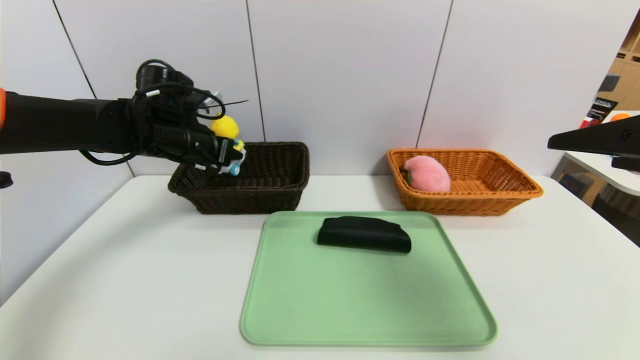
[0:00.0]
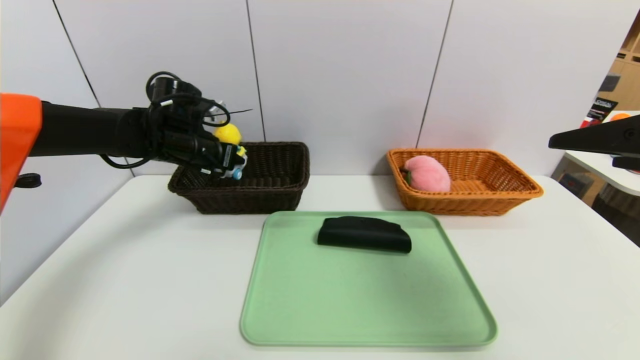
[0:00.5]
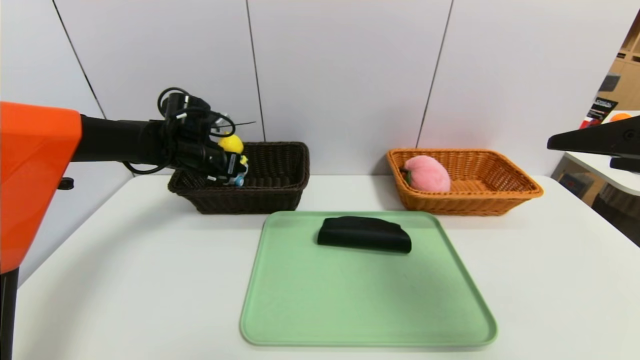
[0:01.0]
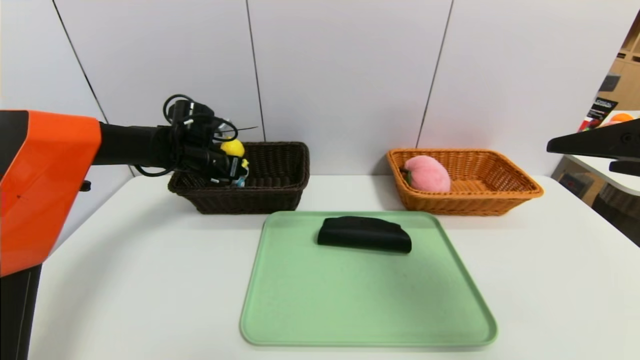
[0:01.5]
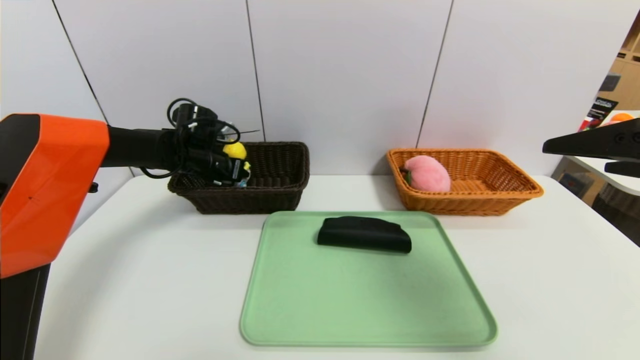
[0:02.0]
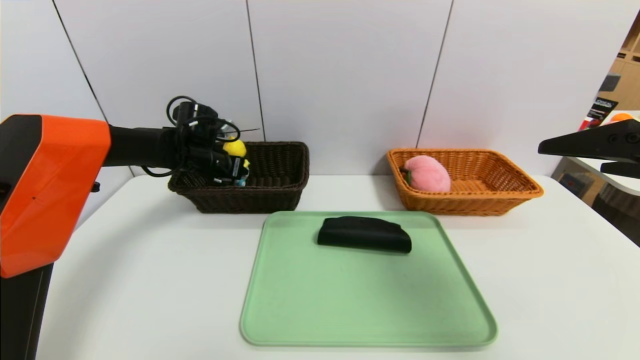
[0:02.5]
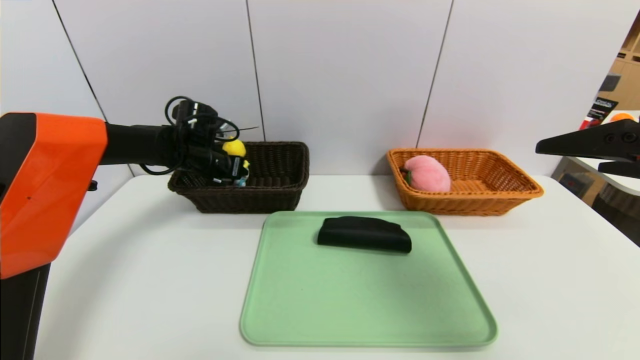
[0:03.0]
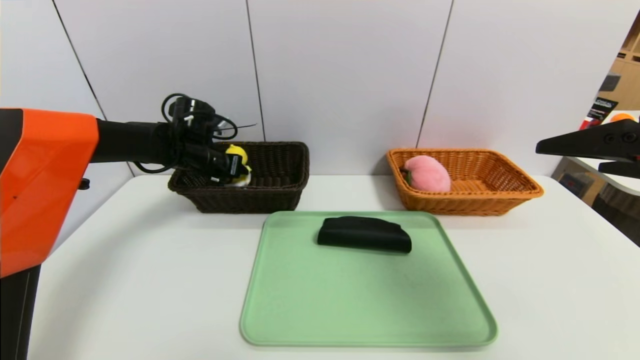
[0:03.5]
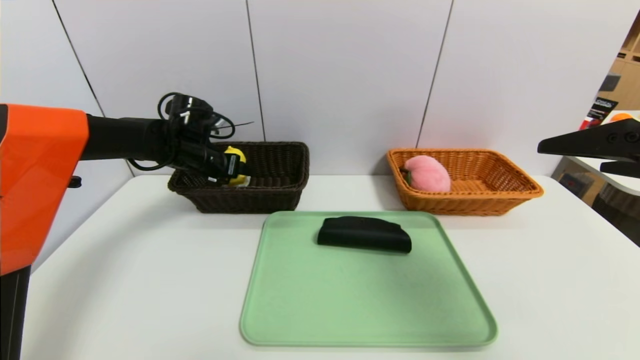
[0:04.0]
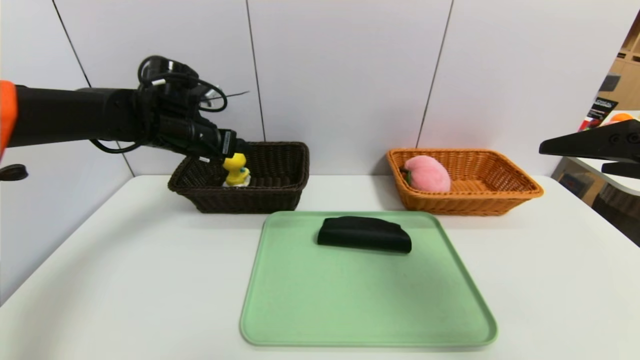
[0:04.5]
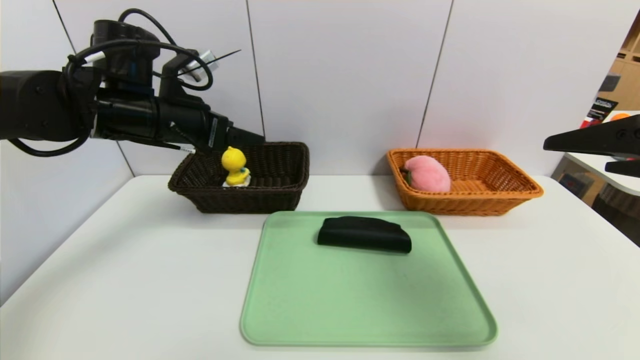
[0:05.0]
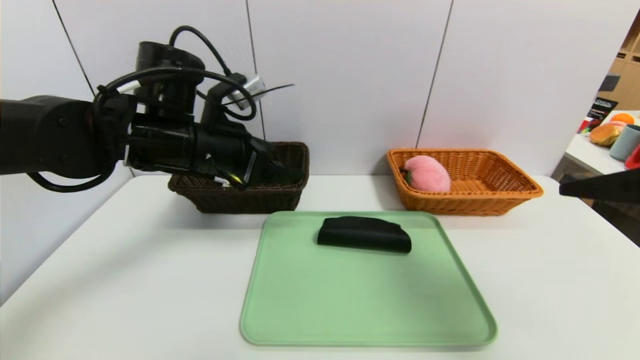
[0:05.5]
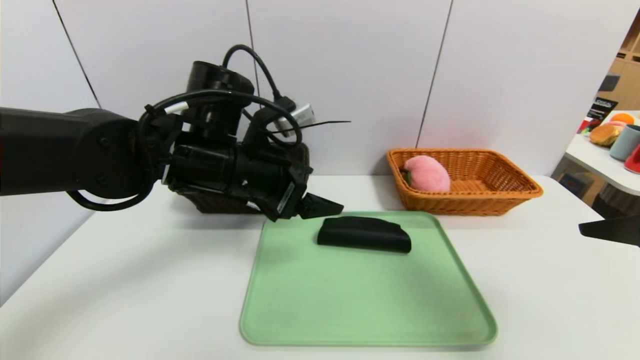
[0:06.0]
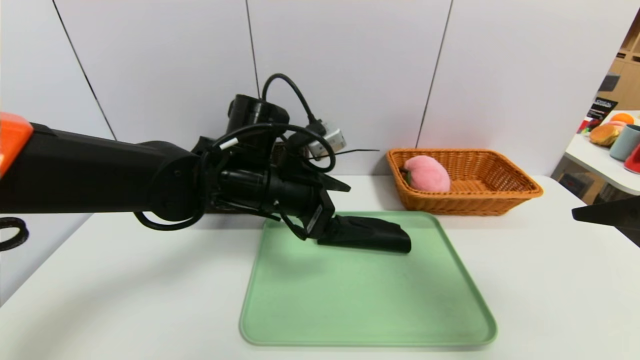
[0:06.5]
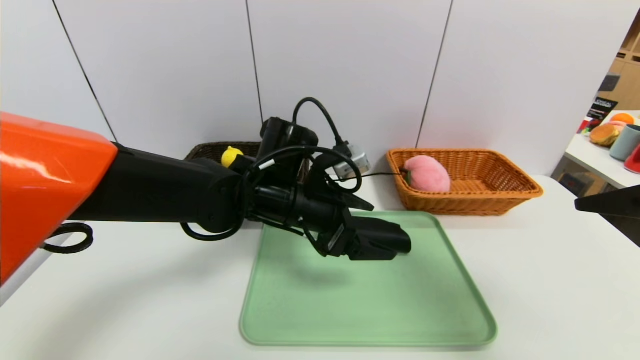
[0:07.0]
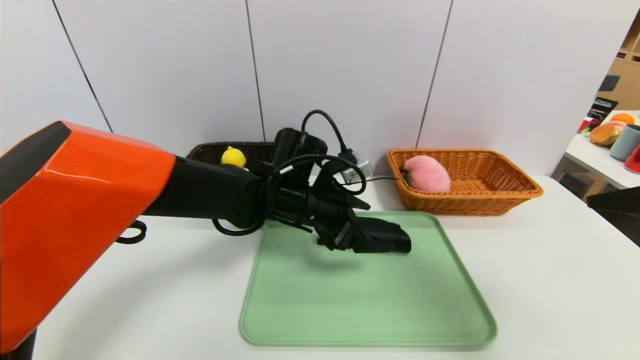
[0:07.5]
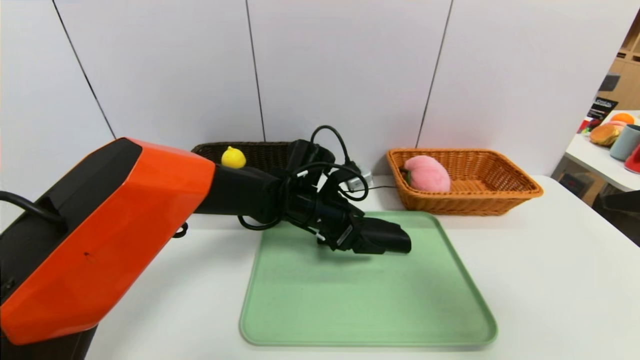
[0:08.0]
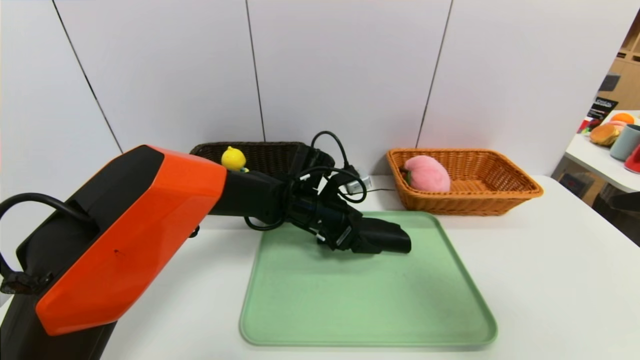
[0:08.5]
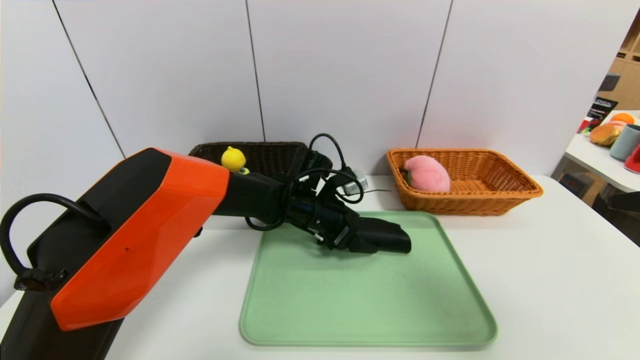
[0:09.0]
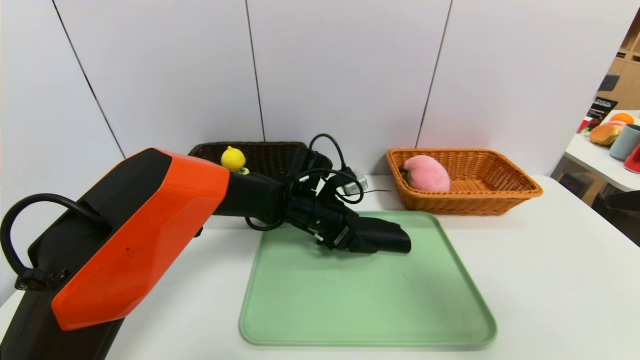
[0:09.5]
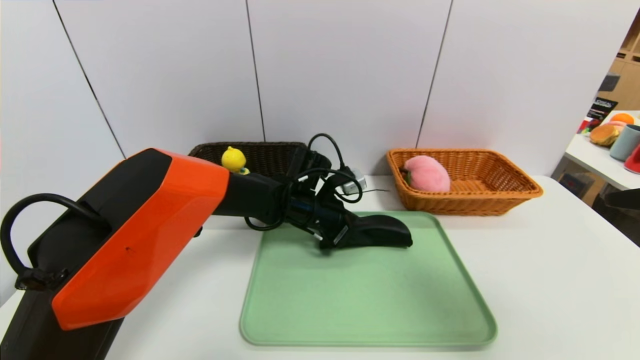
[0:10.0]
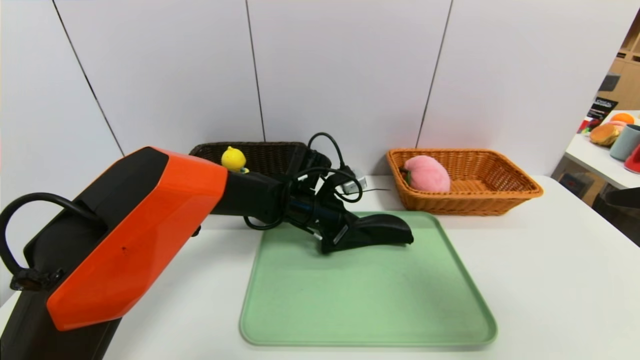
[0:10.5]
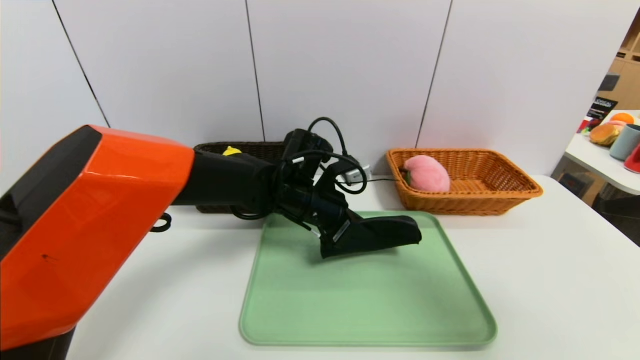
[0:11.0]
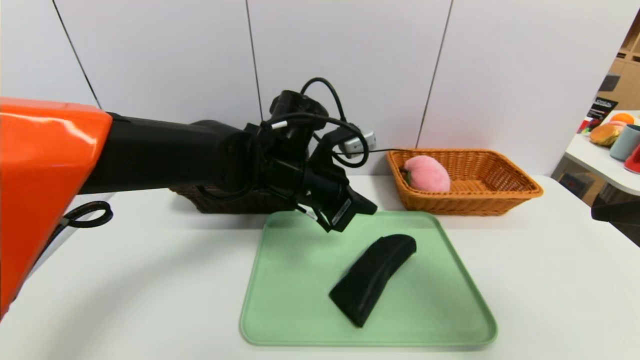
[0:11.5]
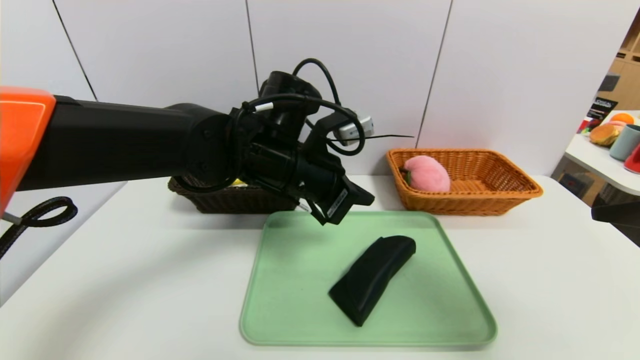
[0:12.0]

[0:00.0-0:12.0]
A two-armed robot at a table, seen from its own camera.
Task of the whole recording: place the food in the right basket with the right gripper, and place the non food items in the left basket with the left gripper.
Step, 0:00.0 to 0:05.0: Grasp the yellow marker and put it in the left basket.
0:00.0 to 0:02.0: The left gripper moves downward and forward, some 10 cm.
0:02.0 to 0:04.0: The left gripper opens.
0:04.0 to 0:06.0: The left gripper goes roughly 20 cm backward, to the right and upward.
0:06.0 to 0:08.0: The left gripper heads downward, to the right and forward, covering roughly 15 cm.
0:08.0 to 0:10.0: The left gripper closes up.
0:10.0 to 0:12.0: The left gripper shifts about 15 cm upward and backward, and closes.

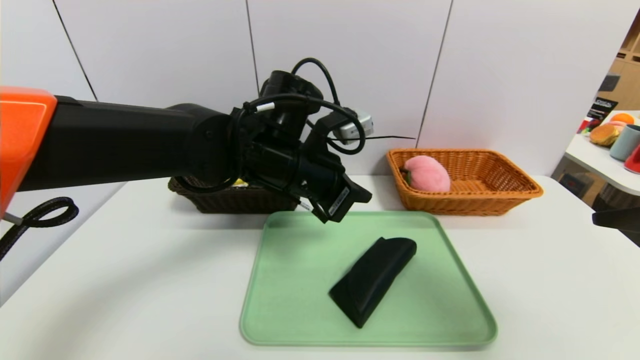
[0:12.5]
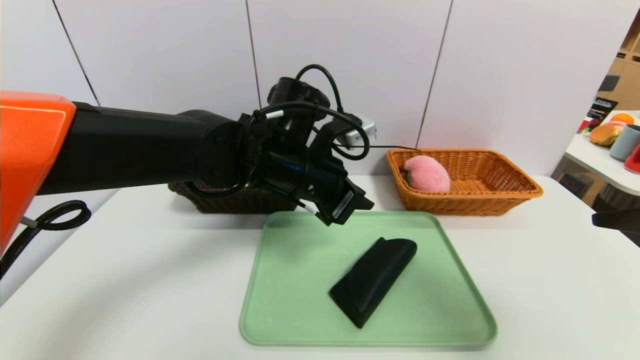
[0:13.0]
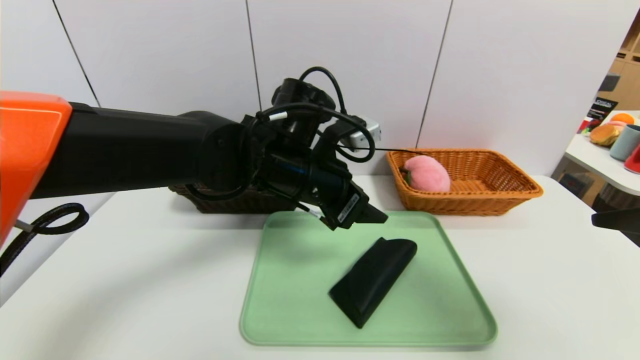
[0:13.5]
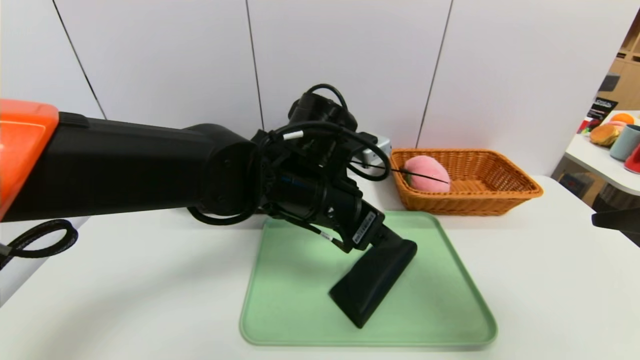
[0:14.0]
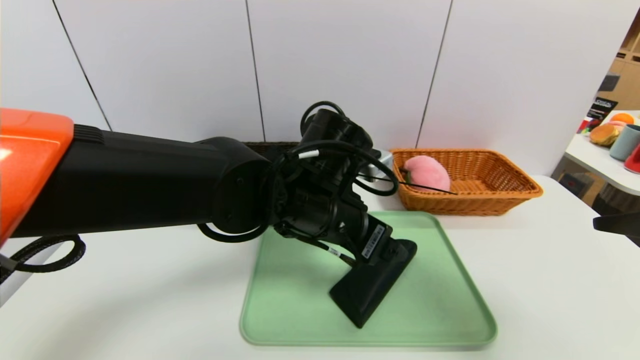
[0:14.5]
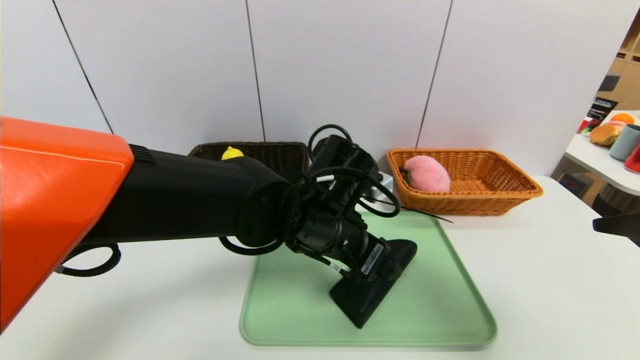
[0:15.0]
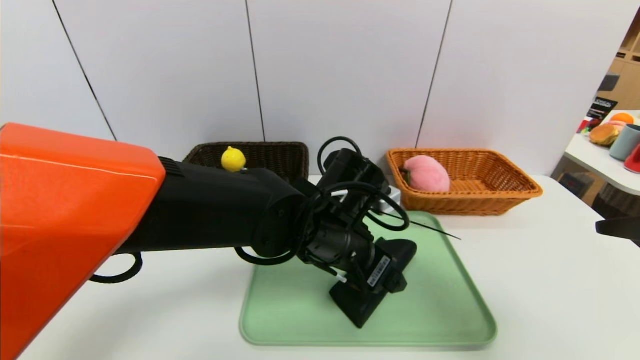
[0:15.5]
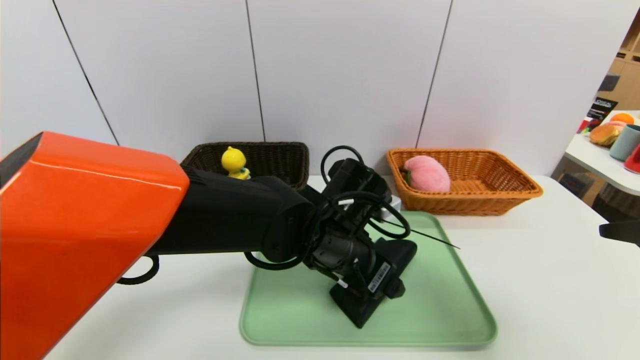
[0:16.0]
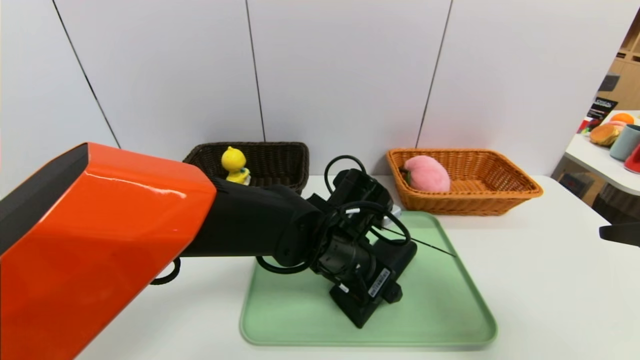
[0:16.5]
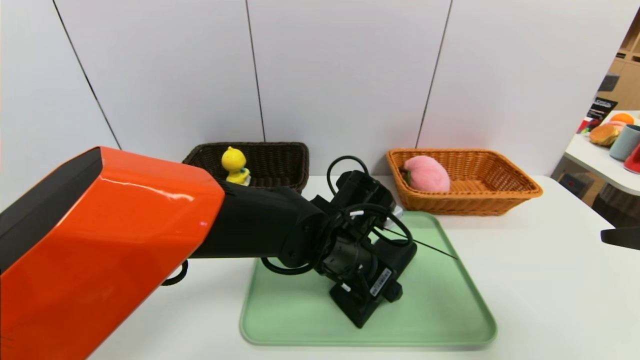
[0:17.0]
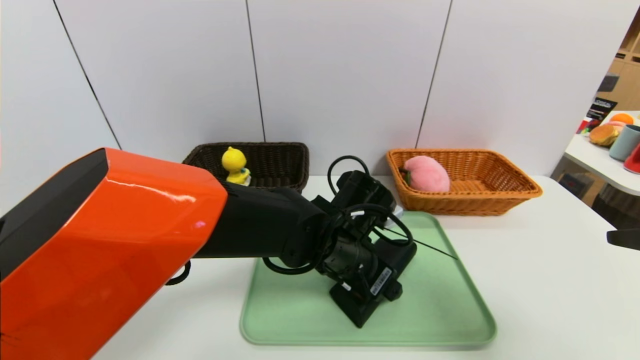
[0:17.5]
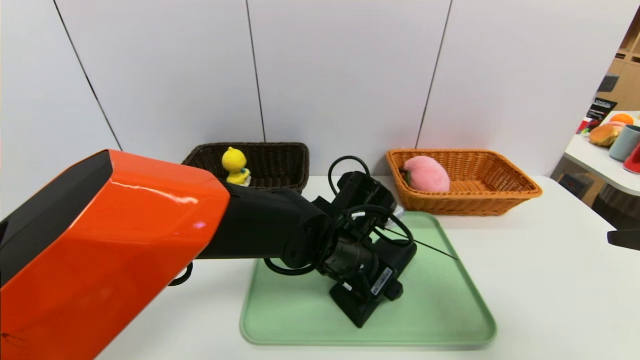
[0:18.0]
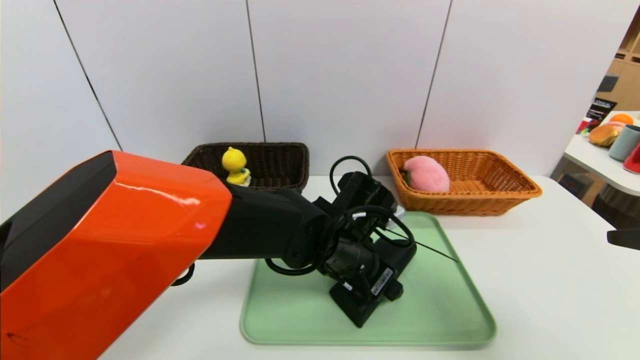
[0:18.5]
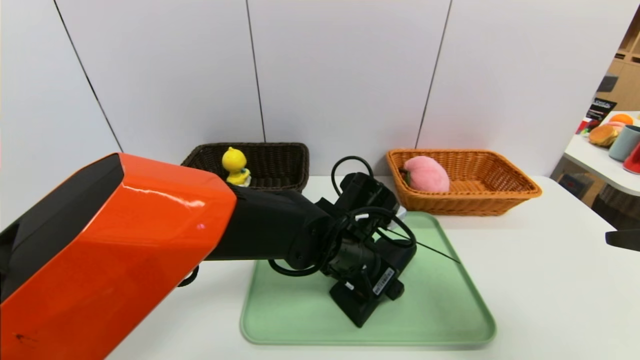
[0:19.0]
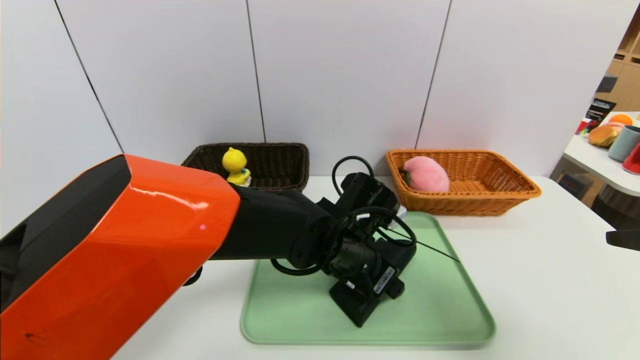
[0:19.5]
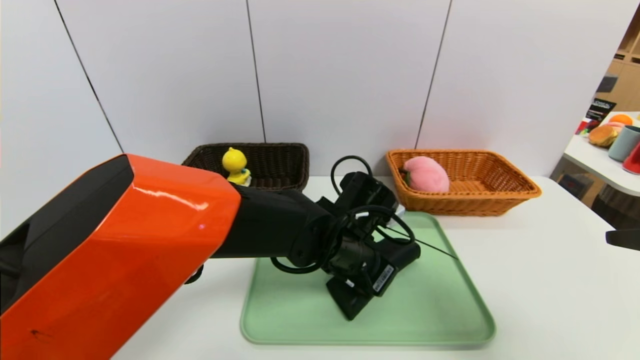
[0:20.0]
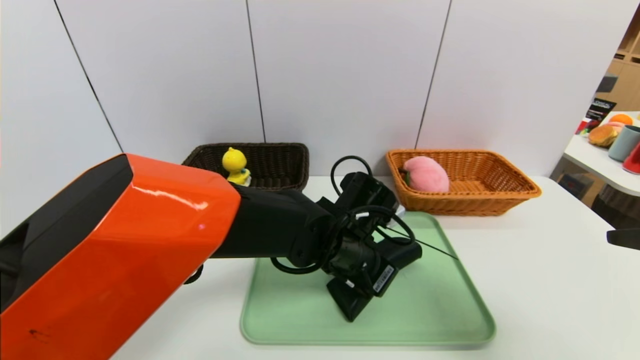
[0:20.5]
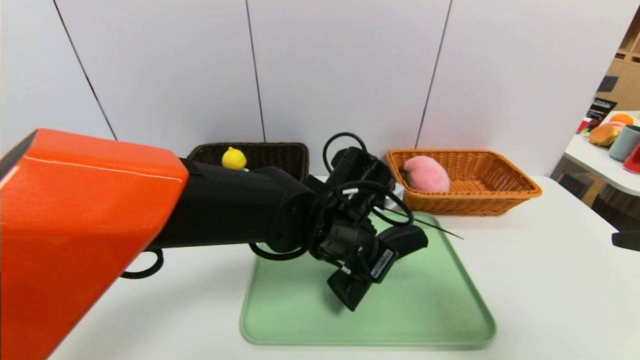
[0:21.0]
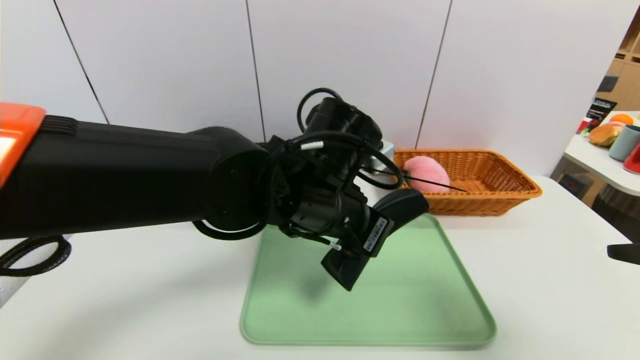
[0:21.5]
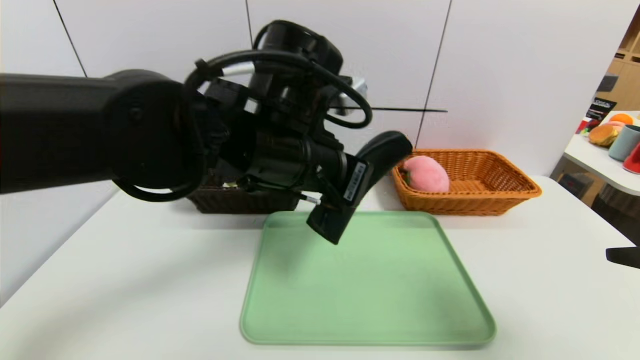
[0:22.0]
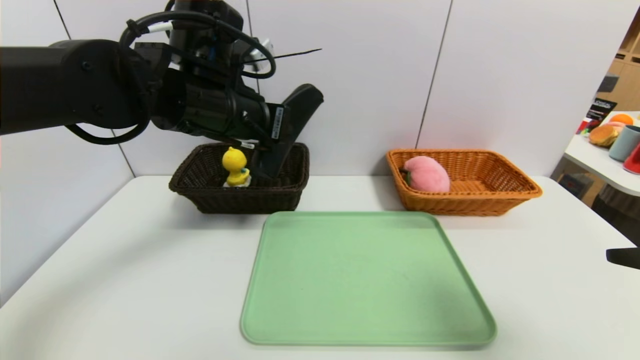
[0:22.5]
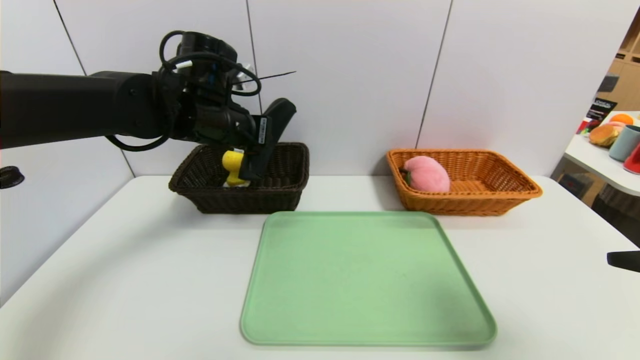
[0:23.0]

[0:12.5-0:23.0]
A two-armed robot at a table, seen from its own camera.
Task of the whole recording: place the food in the right basket with the right gripper, and place the non food items in the left basket with the left gripper.
0:12.5 to 0:14.5: The left gripper shifts by some 5 cm, and opens.
0:14.5 to 0:16.5: The left gripper heads downward, covering approximately 5 cm.
0:16.5 to 0:19.0: There are only small adjustments of the grippers.
0:19.0 to 0:21.0: The left gripper closes up.
0:21.0 to 0:23.0: The left gripper moves to the left, upward and forward, approximately 20 cm.
